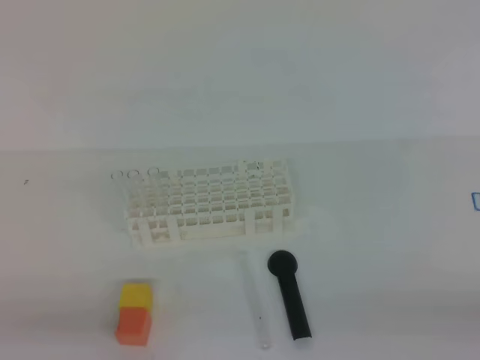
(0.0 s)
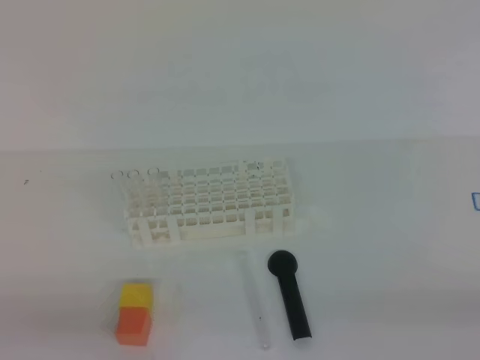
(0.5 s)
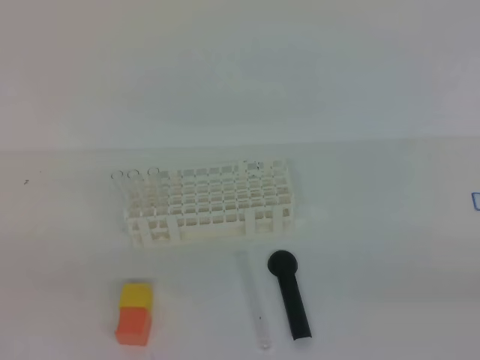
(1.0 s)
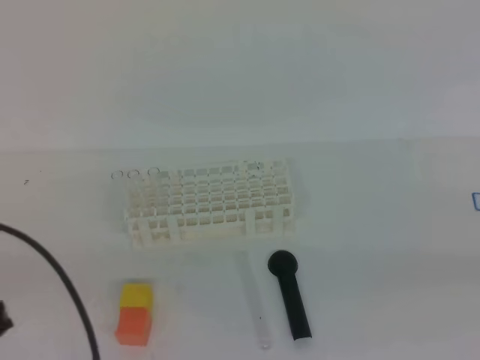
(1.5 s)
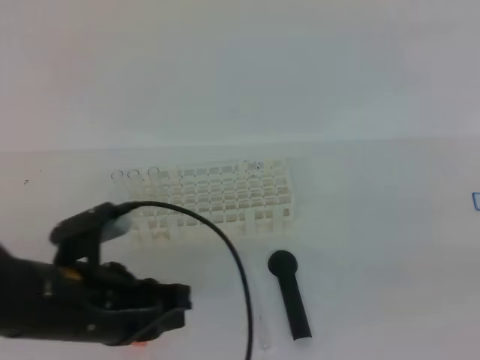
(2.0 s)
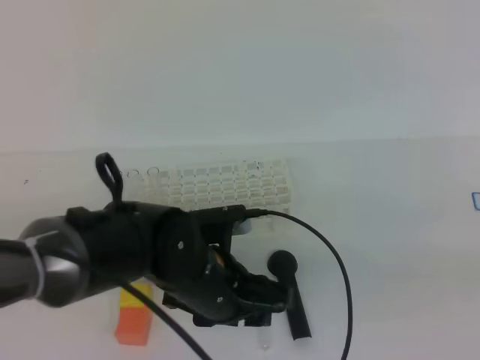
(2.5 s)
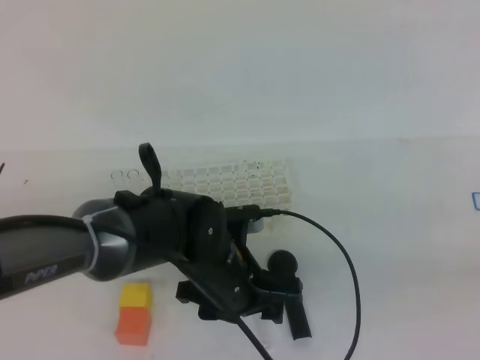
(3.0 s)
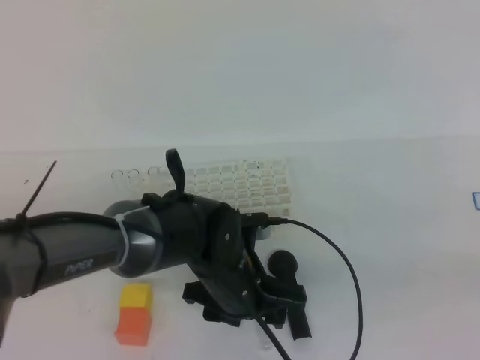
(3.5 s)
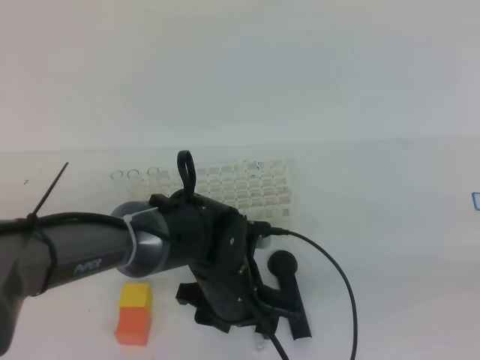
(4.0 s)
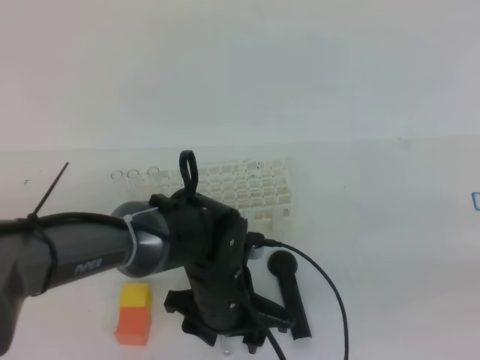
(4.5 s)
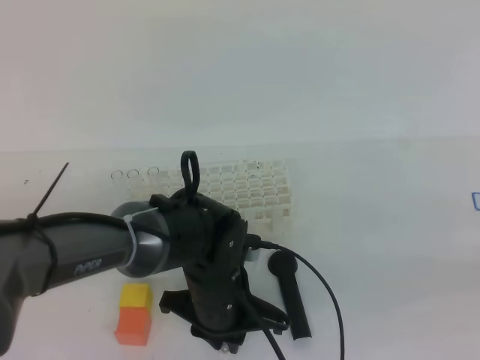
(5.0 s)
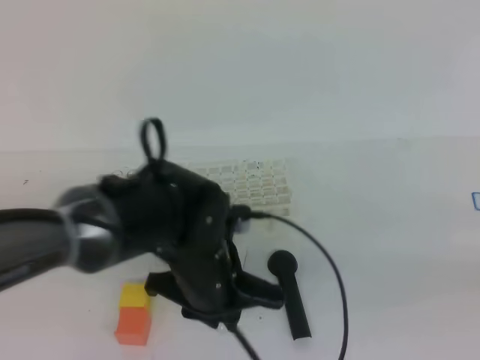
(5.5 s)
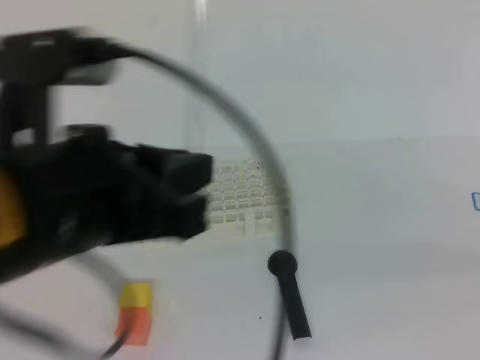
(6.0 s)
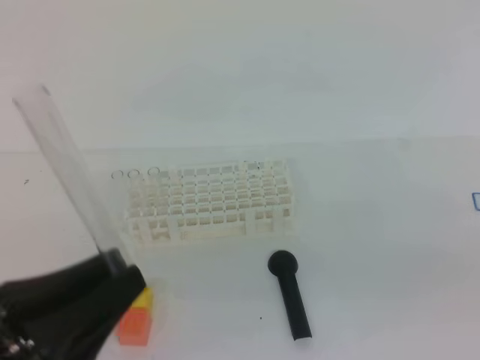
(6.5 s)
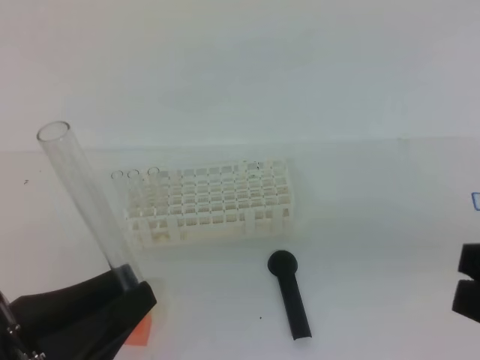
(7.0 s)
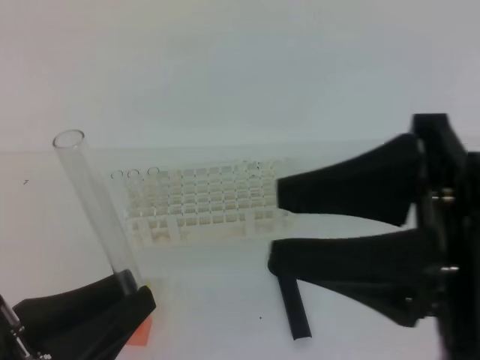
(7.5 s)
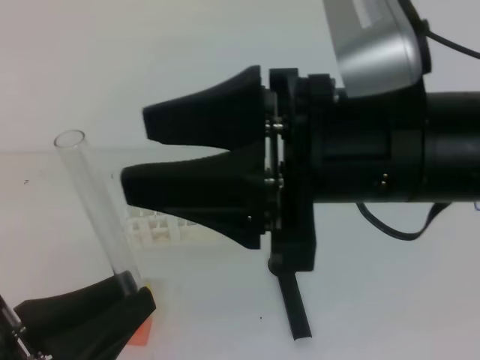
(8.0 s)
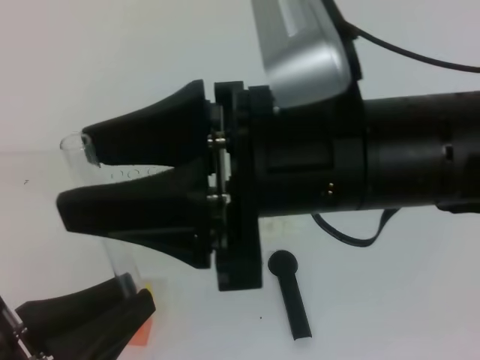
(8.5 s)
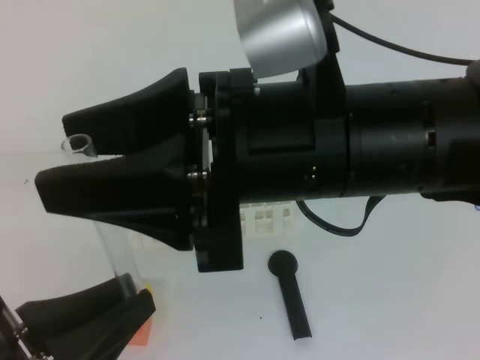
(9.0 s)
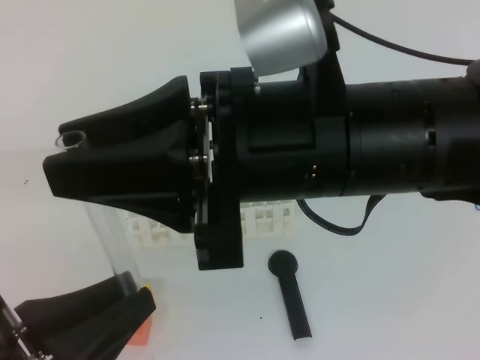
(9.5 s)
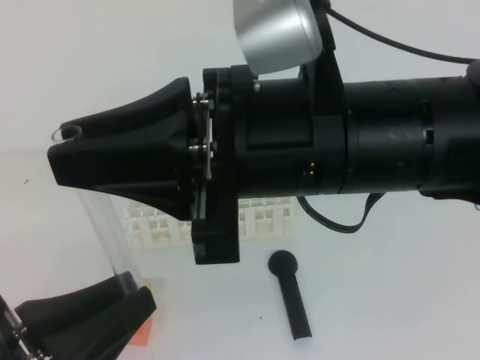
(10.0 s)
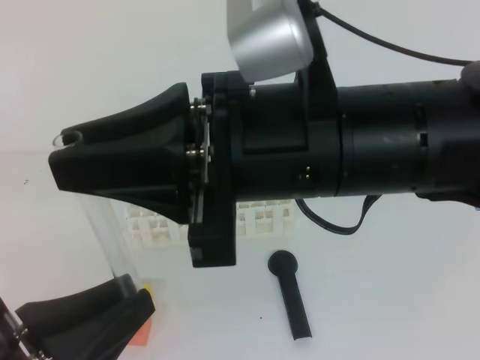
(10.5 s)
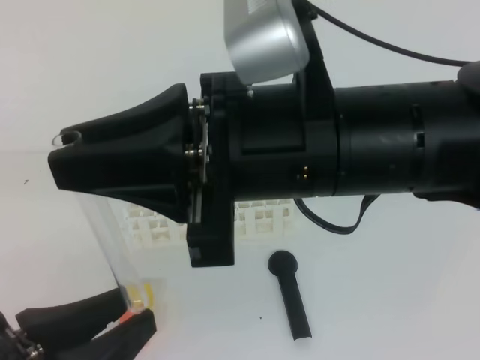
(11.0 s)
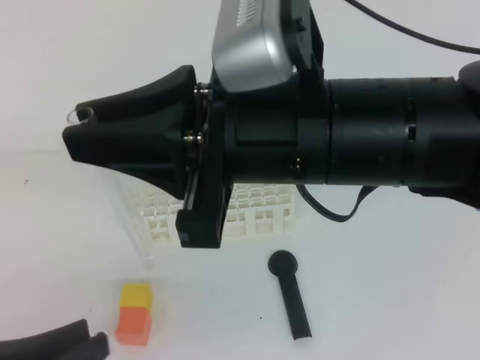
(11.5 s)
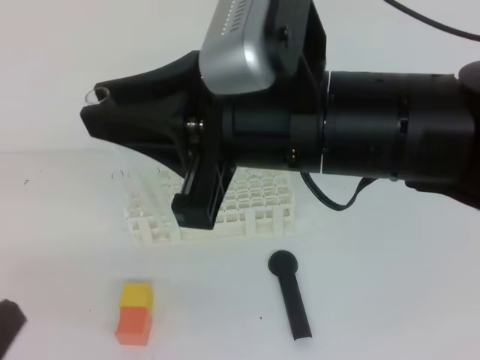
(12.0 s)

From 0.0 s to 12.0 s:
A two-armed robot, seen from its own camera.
From 2.0 s to 4.0 s: The left gripper goes roughly 20 cm to the right, downward and forward, and opens its fingers.
From 4.0 s to 6.0 s: The left gripper heads upward, backward and to the left, covering roughly 25 cm, and closes up.
From 6.0 s to 8.0 s: The left gripper moves backward, to the left and downward, some 15 cm. The right gripper goes approximately 25 cm to the left and forward, and opens its fingers.
From 8.0 s to 10.0 s: The right gripper changes place by approximately 5 cm, and closes.
From 10.0 s to 12.0 s: The left gripper shifts roughly 5 cm to the left, and opens and closes again.

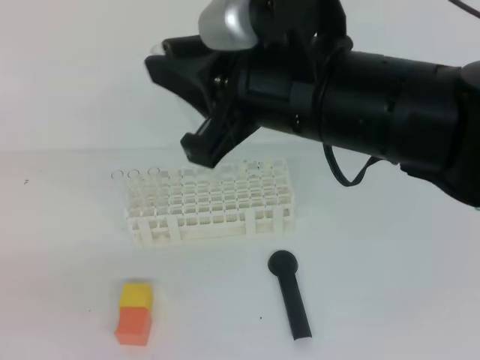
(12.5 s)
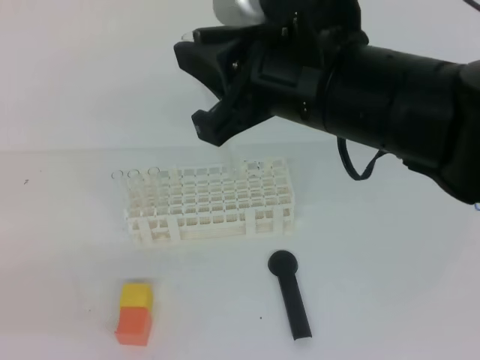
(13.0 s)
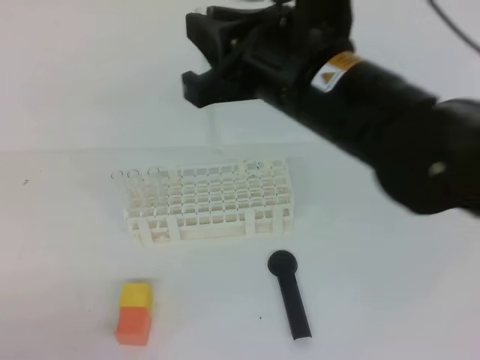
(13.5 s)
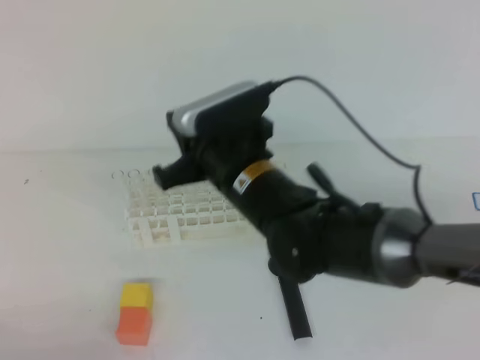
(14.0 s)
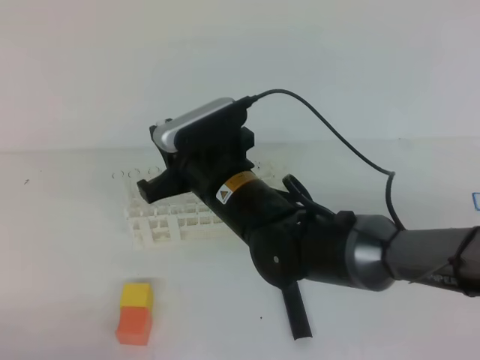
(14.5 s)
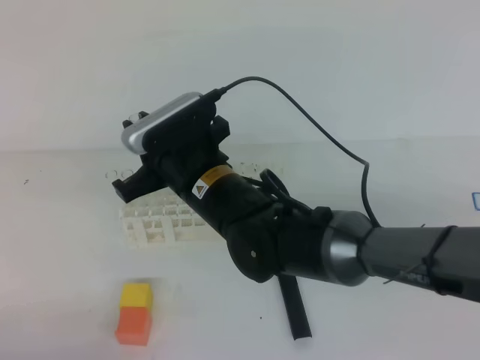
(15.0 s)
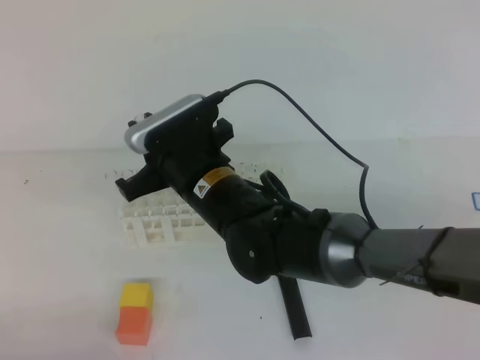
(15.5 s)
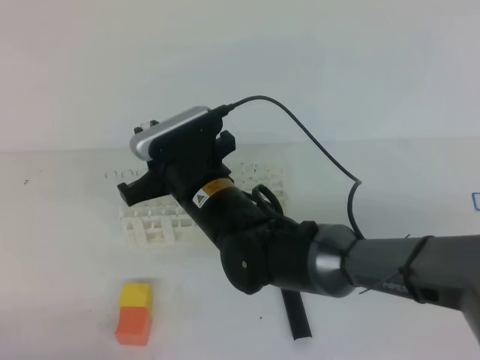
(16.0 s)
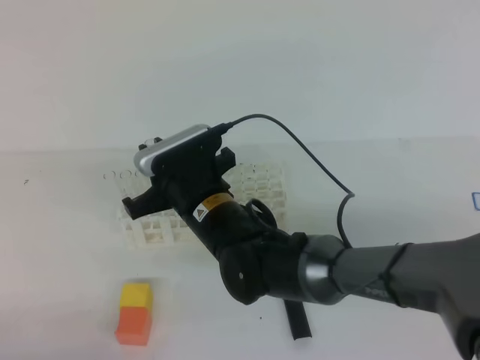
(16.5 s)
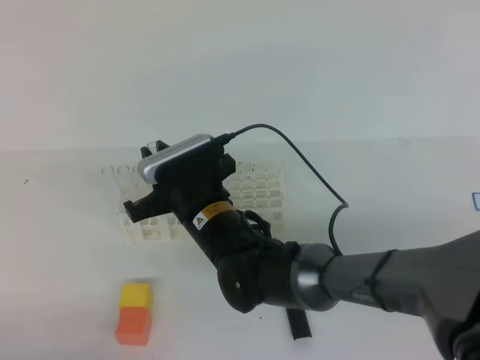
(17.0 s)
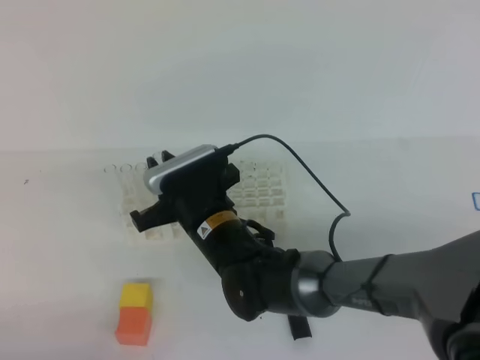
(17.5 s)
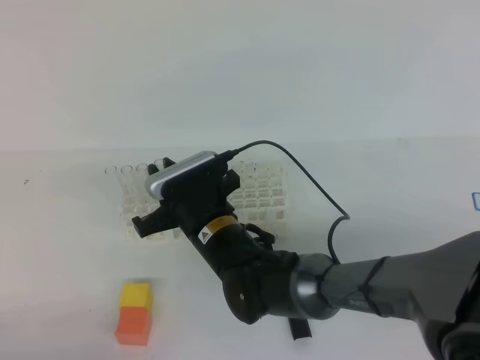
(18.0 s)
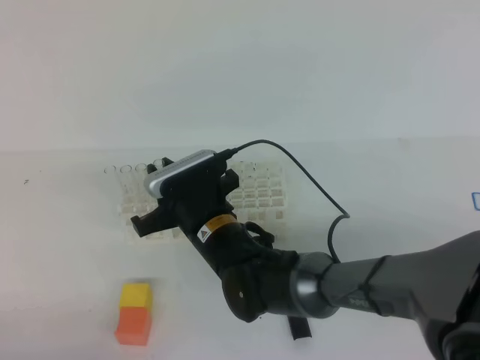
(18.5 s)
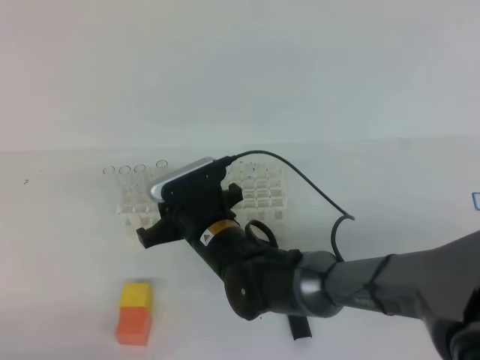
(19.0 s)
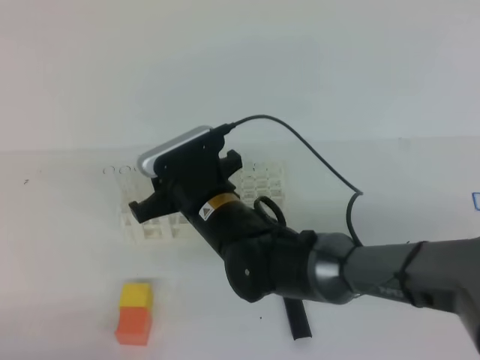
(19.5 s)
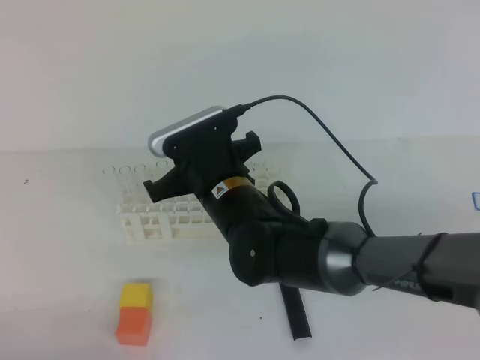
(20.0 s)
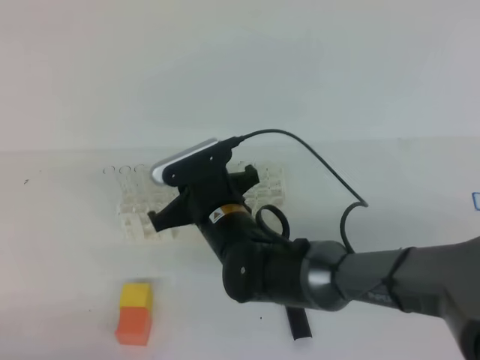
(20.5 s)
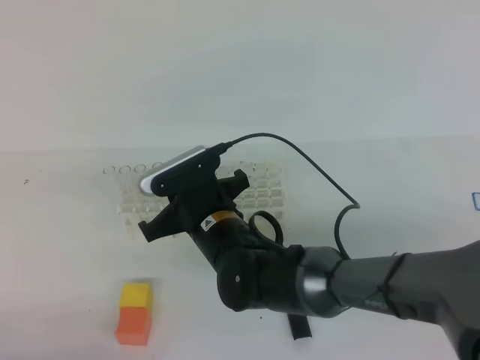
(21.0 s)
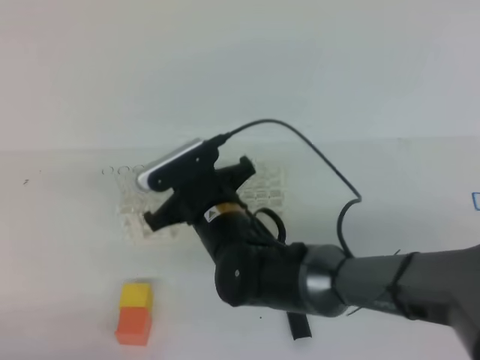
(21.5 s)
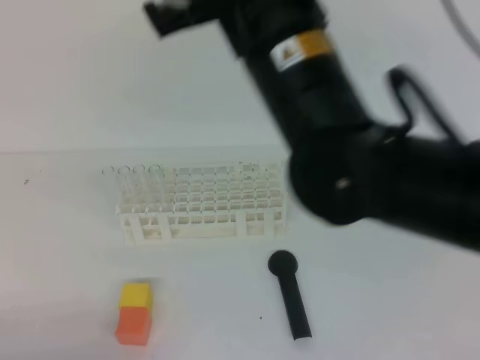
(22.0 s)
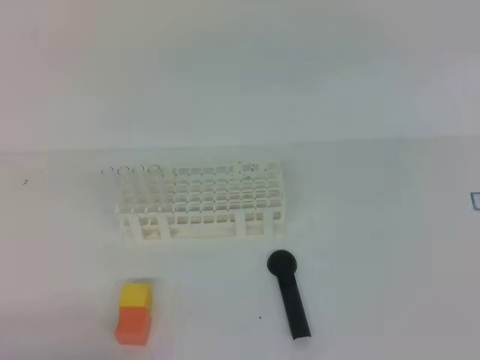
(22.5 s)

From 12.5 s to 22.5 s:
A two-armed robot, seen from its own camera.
From 12.5 s to 14.5 s: The left gripper is displaced downward by some 10 cm. The right gripper heads downward, forward and to the left, covering approximately 20 cm.
From 14.5 s to 16.5 s: The grippers make only small movements.
From 16.5 s to 18.5 s: The grippers move only a little.
From 20.5 s to 22.5 s: The right gripper travels upward and to the right by roughly 35 cm.
